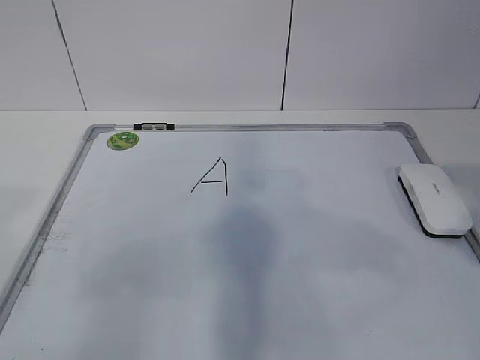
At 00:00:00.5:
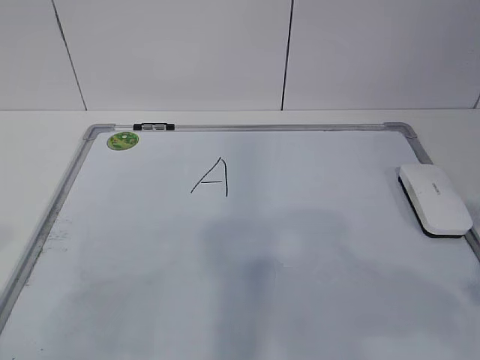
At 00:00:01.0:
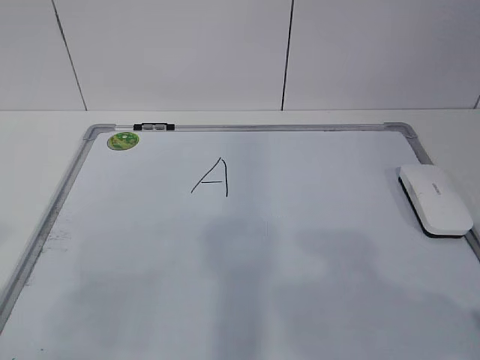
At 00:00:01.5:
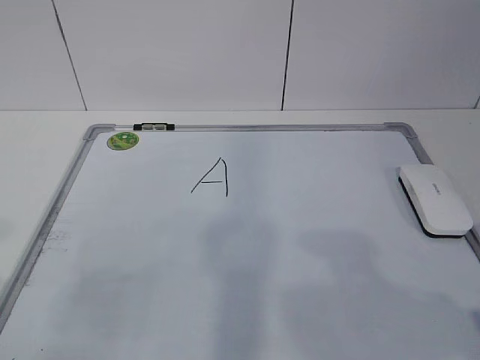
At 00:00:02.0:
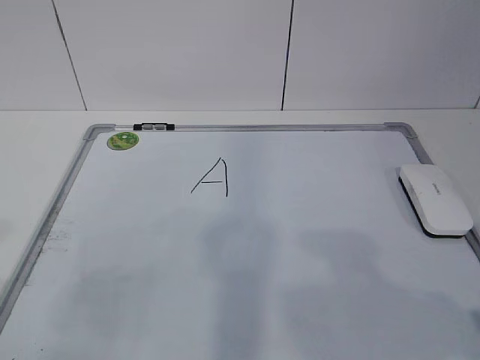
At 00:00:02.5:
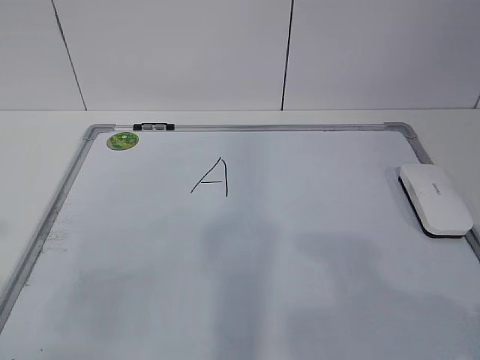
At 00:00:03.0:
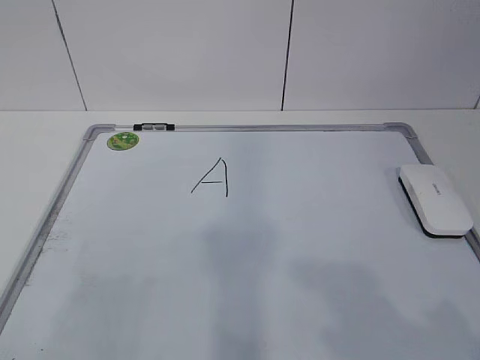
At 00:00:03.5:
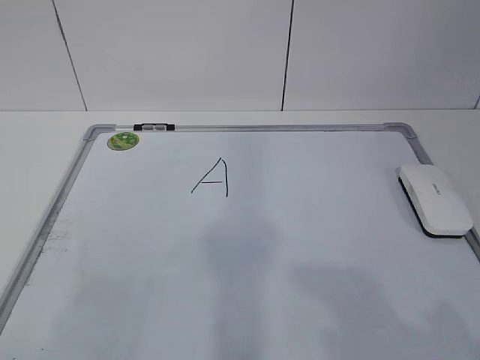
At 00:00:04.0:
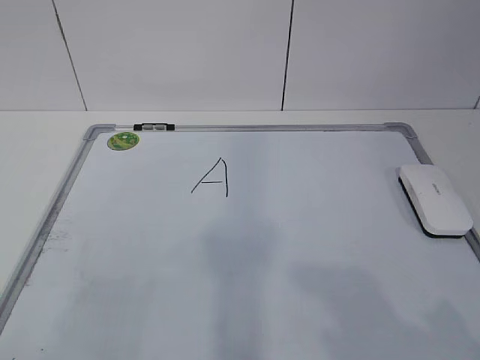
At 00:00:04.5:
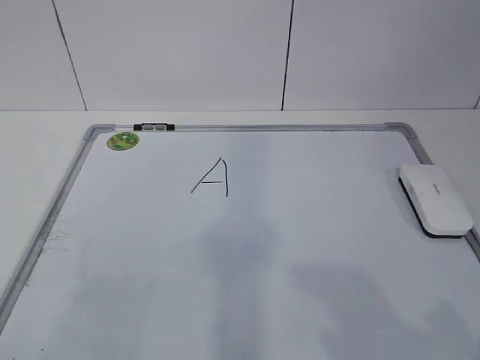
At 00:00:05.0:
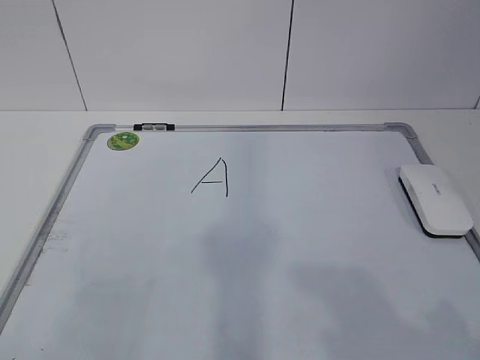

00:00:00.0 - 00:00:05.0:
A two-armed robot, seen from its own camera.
Task of the whole recording: pick up the eraser on the blackboard and erase the letter "a".
00:00:00.0 - 00:00:02.5: The right gripper moves downward, about 10 cm. The left gripper shifts by roughly 5 cm.
